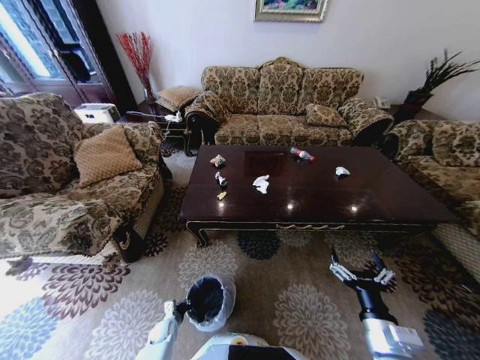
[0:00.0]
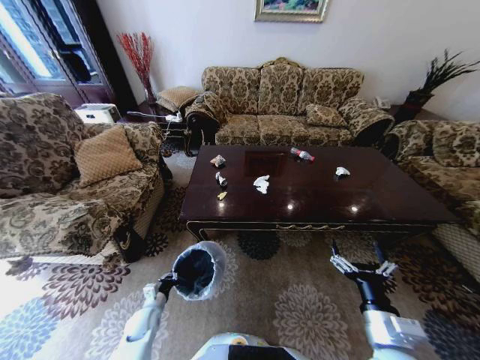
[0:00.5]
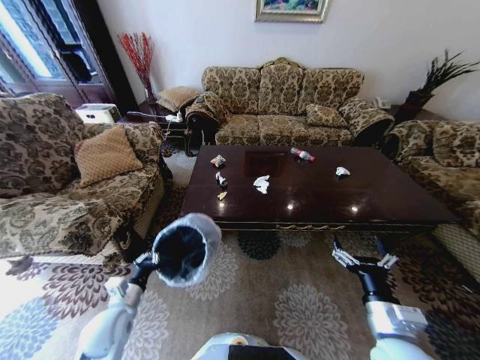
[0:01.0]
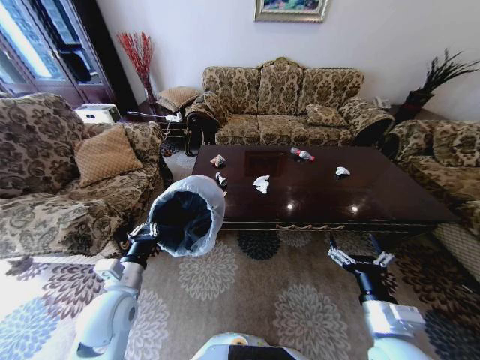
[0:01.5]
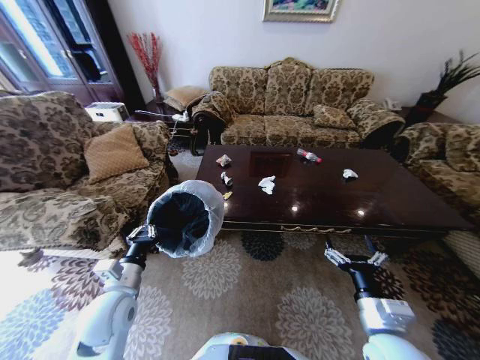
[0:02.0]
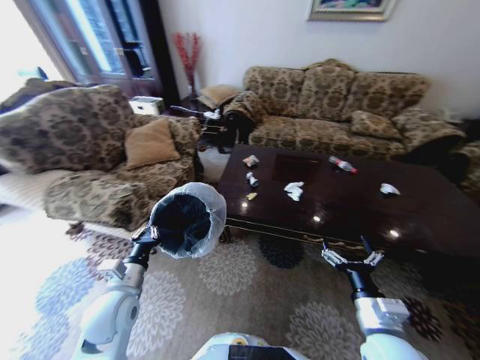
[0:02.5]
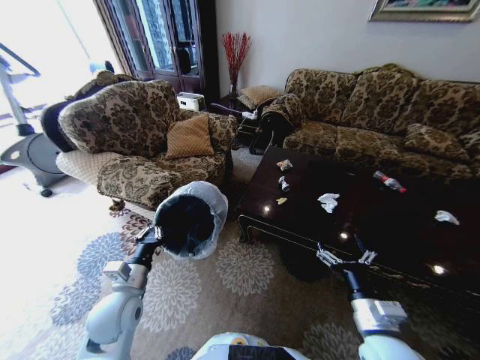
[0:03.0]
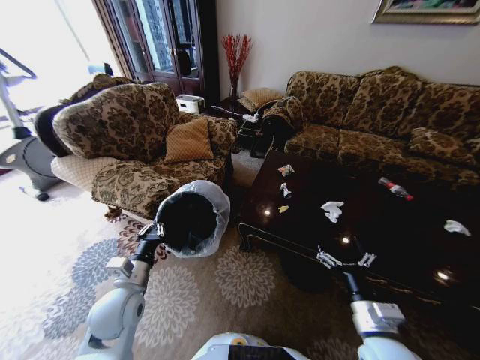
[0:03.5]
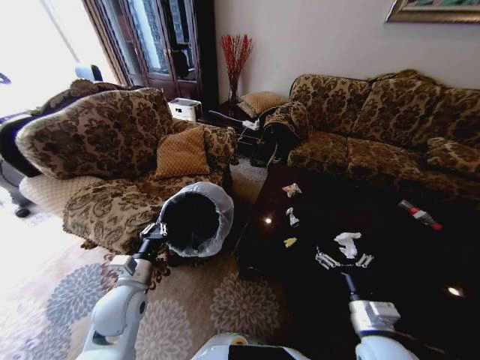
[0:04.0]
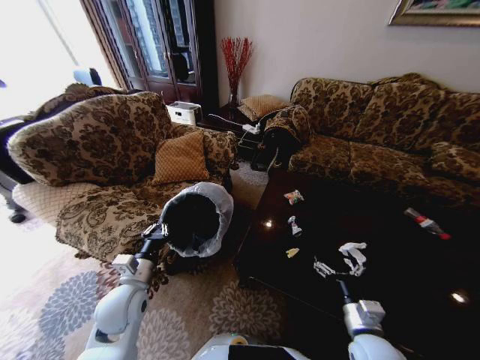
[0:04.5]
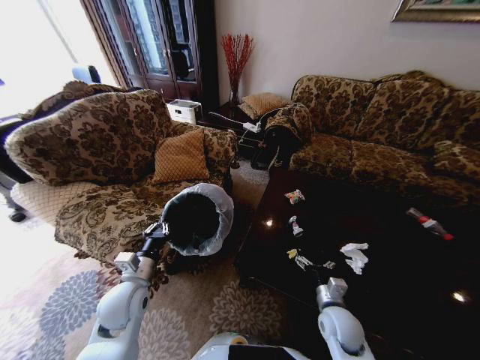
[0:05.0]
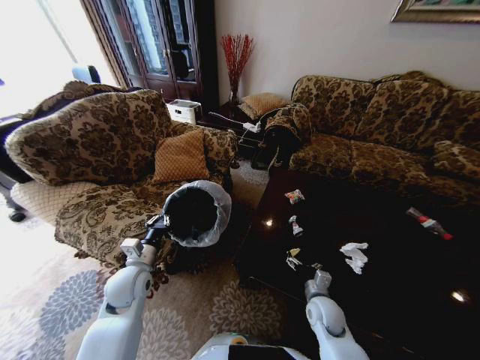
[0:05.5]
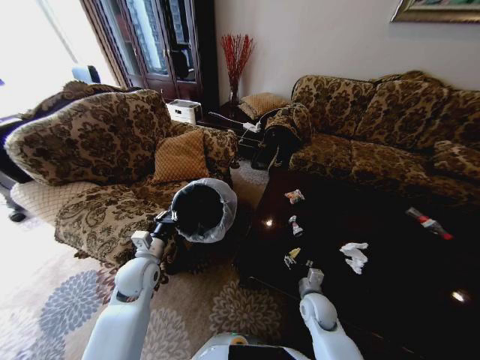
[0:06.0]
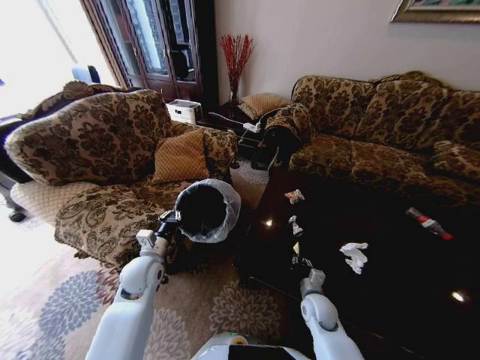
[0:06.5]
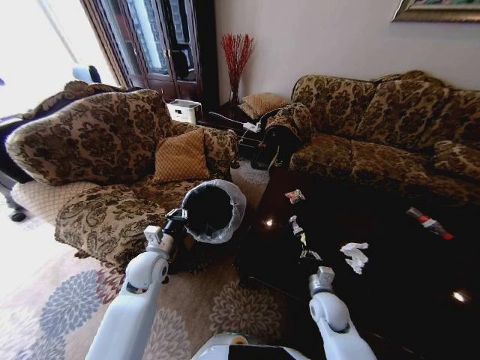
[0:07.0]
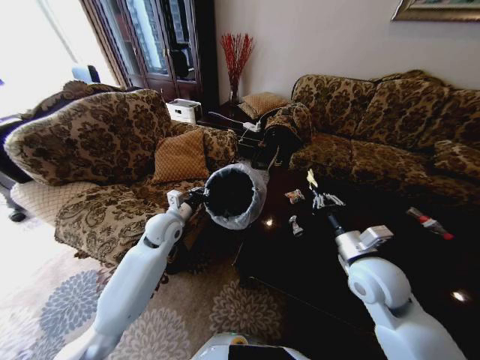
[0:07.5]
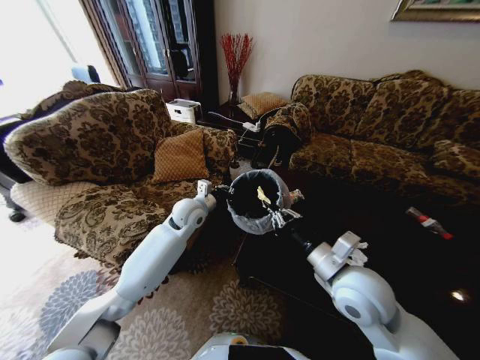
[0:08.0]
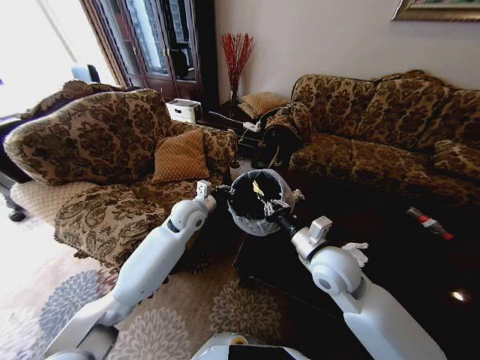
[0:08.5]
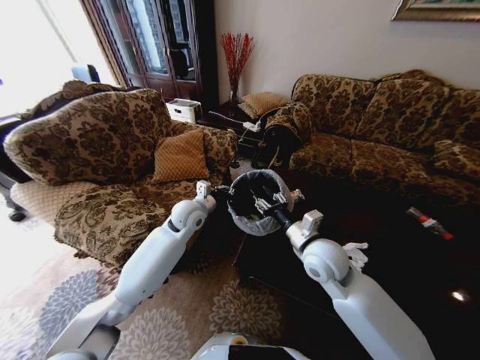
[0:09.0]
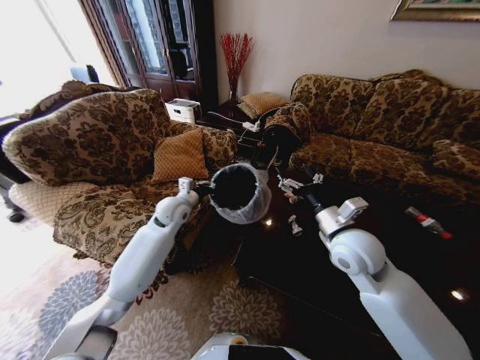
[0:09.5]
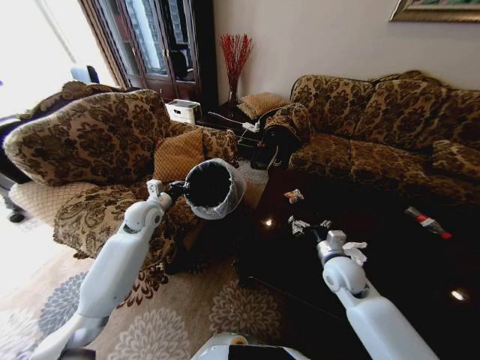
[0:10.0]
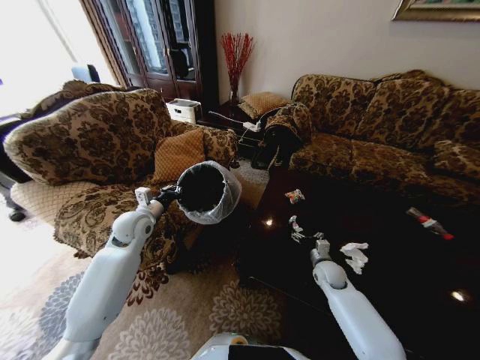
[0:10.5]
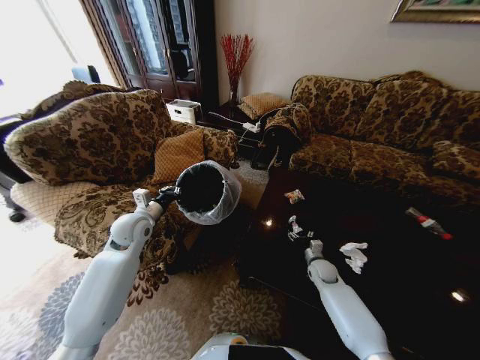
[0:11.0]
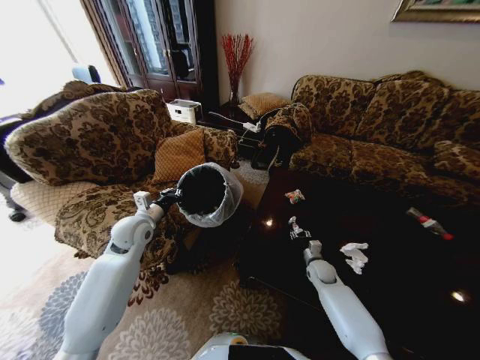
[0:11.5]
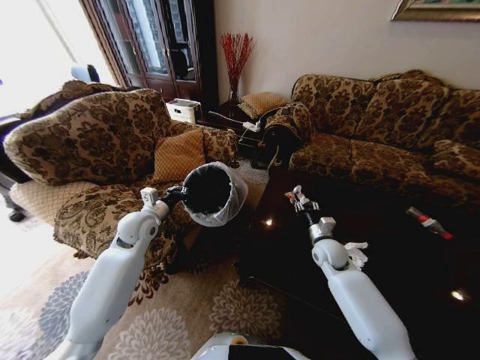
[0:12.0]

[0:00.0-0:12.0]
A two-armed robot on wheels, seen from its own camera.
Task of the whole recording: Move to the front of the table and place the trash on the table into the trash bin.
0:00.0 to 0:02.0: The left gripper moves upward, approximately 40 cm.
0:04.0 to 0:06.0: The left gripper heads forward, covering approximately 10 cm, while the right gripper moves downward and forward, roughly 20 cm.
0:06.0 to 0:08.0: The right gripper travels upward by approximately 25 cm, and closes up, while the left gripper goes approximately 20 cm forward, to the right and upward.
0:08.0 to 0:10.0: The left gripper heads to the left, covering approximately 15 cm. Meanwhile the right gripper travels downward and forward by about 20 cm, and opens its fingers.
0:10.0 to 0:12.0: The right gripper shifts about 5 cm forward, travels downward and back again, about 15 cm each way, and closes.

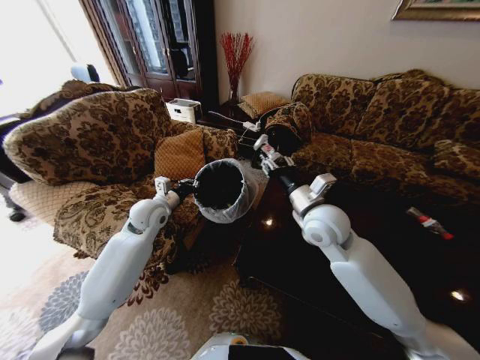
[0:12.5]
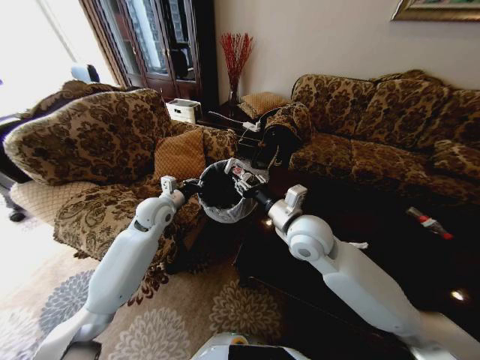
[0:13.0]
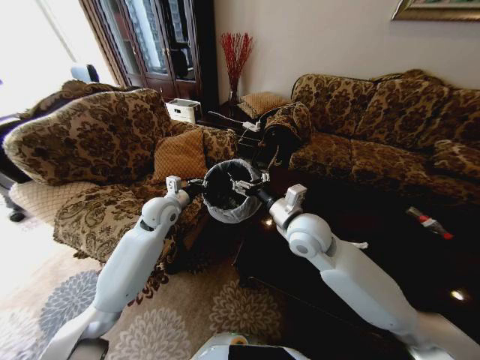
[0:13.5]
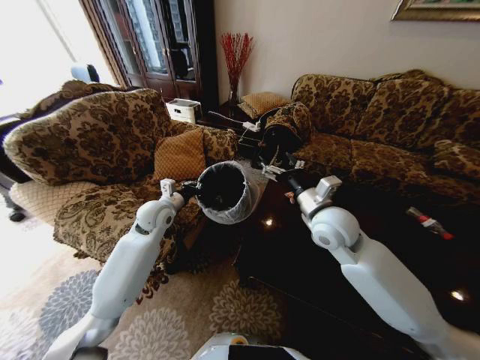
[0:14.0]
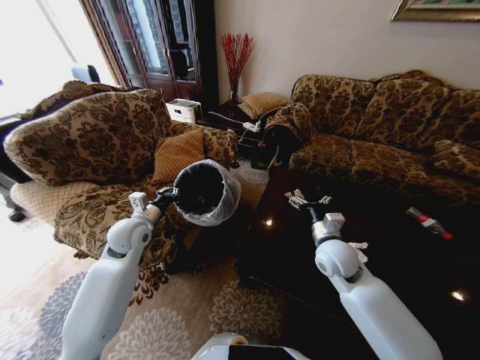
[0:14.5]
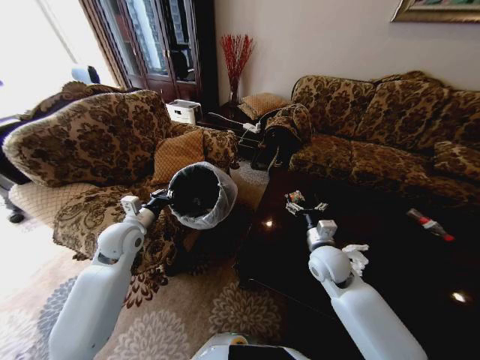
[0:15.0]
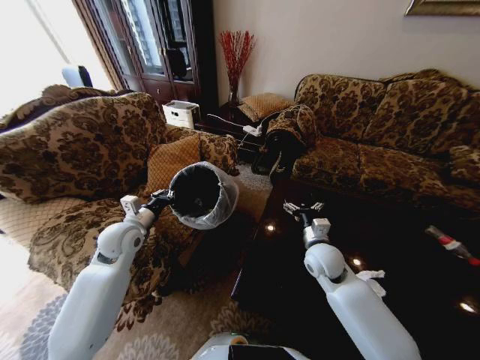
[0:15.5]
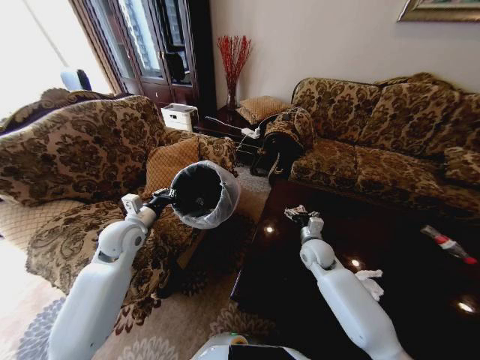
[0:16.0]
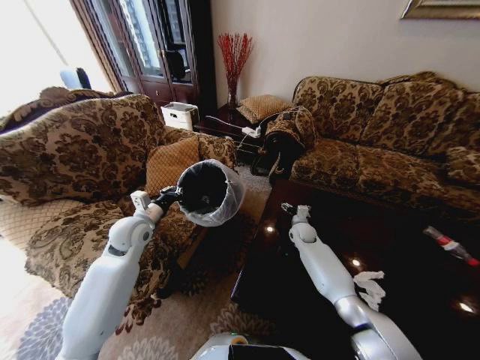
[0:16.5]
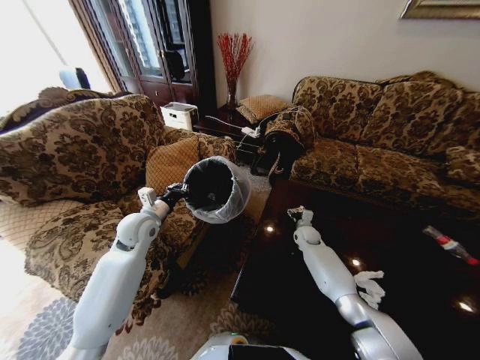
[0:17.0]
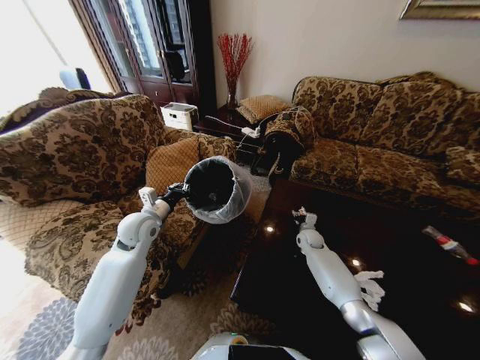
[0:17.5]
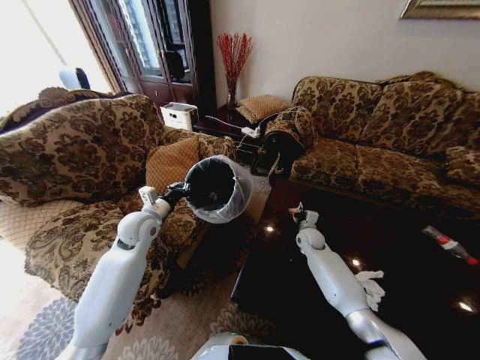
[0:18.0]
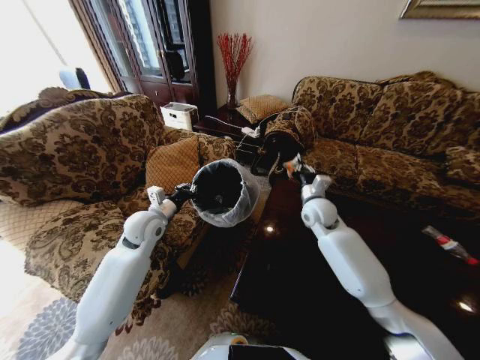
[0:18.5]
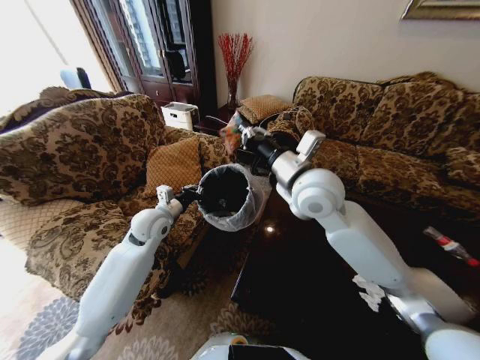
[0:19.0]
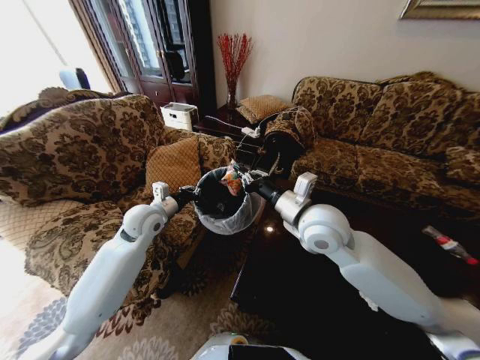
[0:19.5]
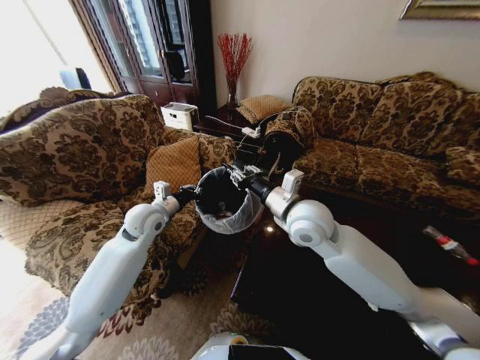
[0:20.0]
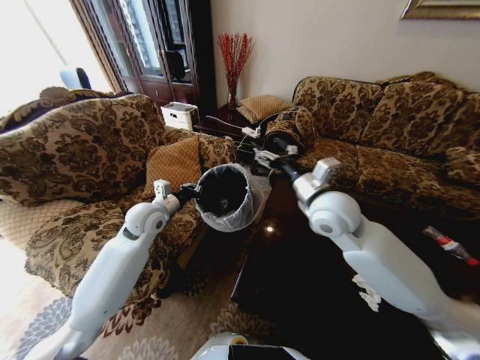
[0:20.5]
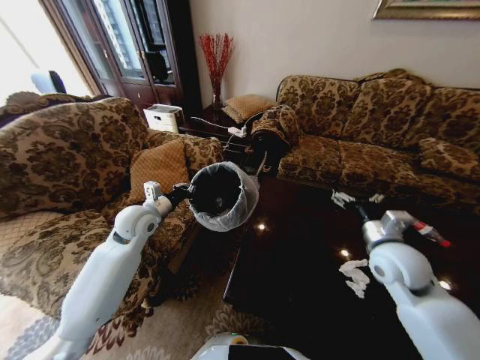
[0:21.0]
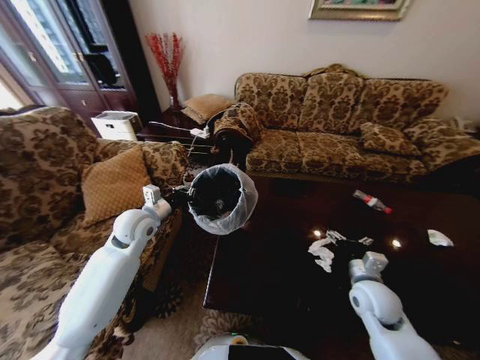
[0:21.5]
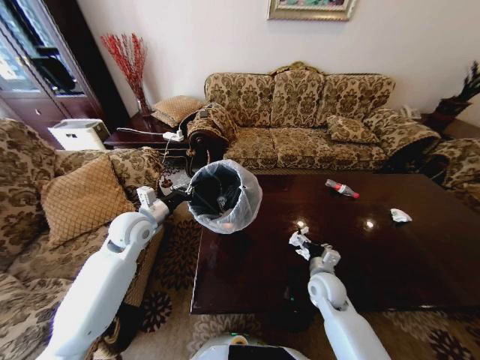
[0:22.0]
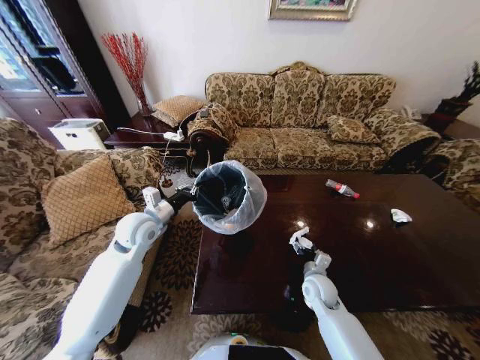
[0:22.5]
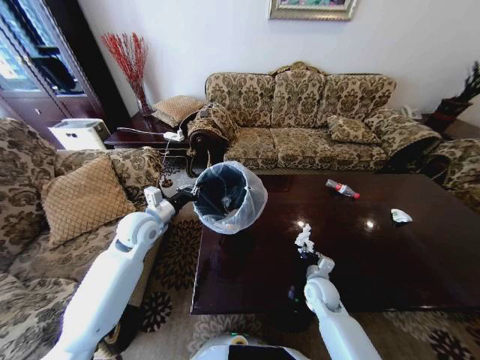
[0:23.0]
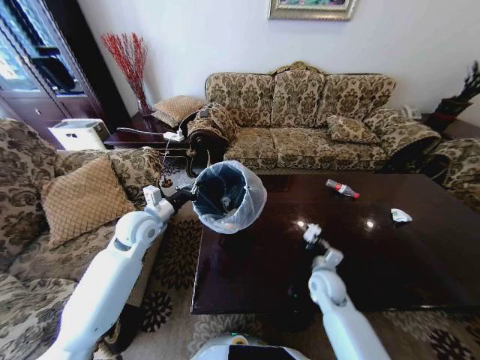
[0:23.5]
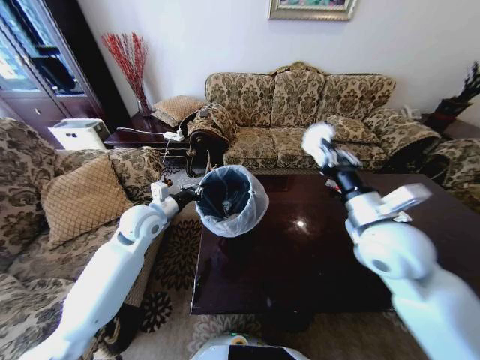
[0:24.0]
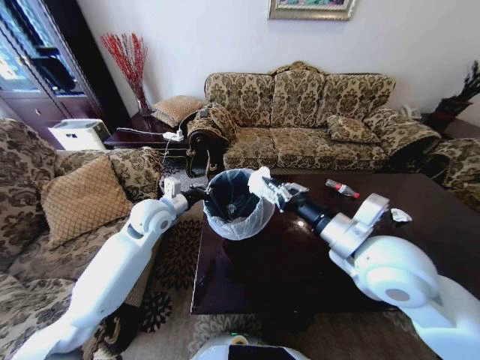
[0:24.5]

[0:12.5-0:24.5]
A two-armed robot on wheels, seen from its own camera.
Task of the whole recording: Move to the front of the table and place the trash on the table into the trash bin.
0:12.5 to 0:14.5: The right gripper moves downward, about 10 cm, and opens its fingers. Meanwhile the left gripper goes some 5 cm backward.
0:14.5 to 0:16.5: The right gripper is displaced forward and downward by some 25 cm.
0:16.5 to 0:18.5: The right gripper goes approximately 20 cm upward, and closes its fingers.
0:18.5 to 0:20.5: The right gripper heads upward, backward and to the left, covering about 15 cm, and opens.
0:20.5 to 0:22.5: The right gripper is displaced downward by about 30 cm.
0:22.5 to 0:24.5: The right gripper travels upward by some 30 cm, and closes; the left gripper ends up roughly 5 cm from where it was.

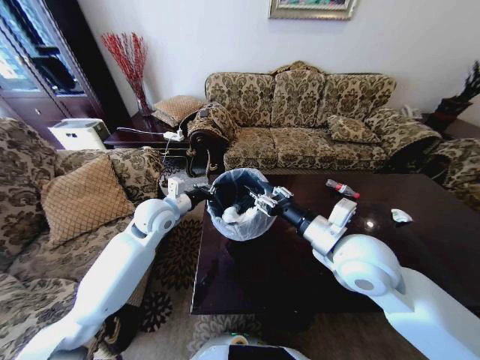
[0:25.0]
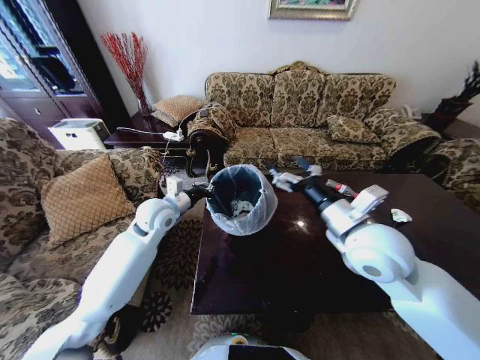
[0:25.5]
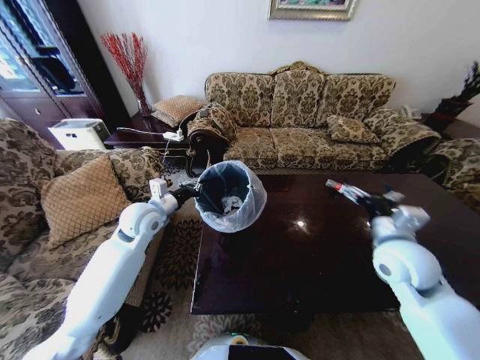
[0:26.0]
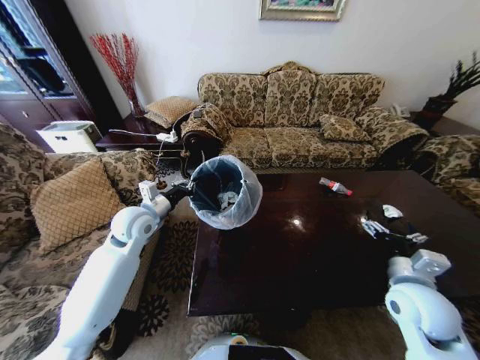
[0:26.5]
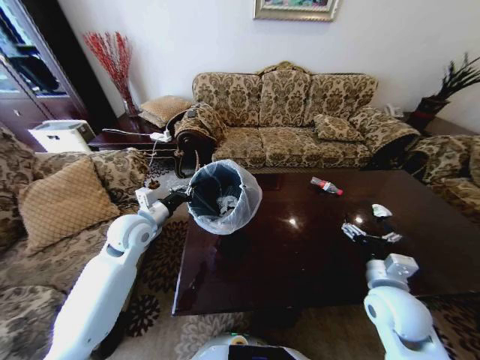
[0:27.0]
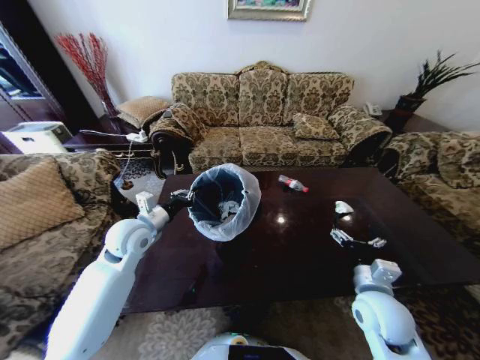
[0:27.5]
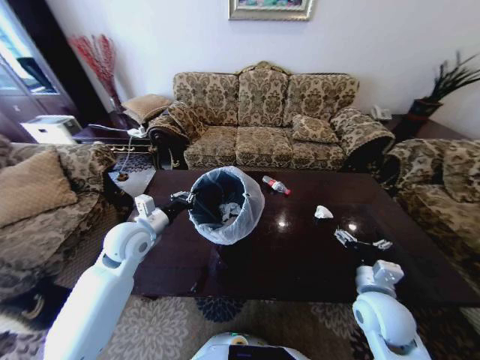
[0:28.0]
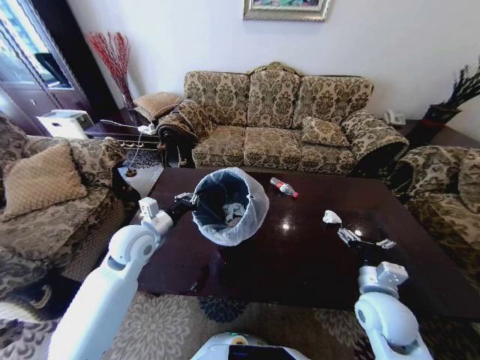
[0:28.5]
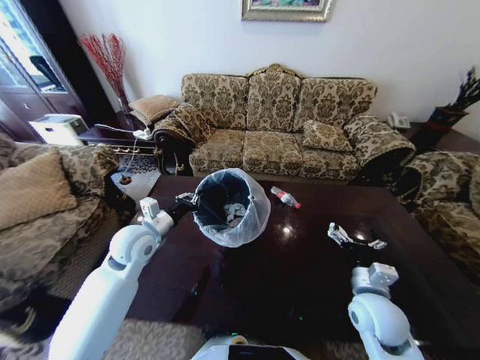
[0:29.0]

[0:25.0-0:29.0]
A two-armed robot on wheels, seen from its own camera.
Task of the whole recording: Move to the front of the table and place the trash on the table into the trash bin.
0:25.0 to 0:27.0: The left gripper heads to the left, covering about 5 cm; the right gripper heads downward and to the right, covering some 20 cm, and opens its fingers.
